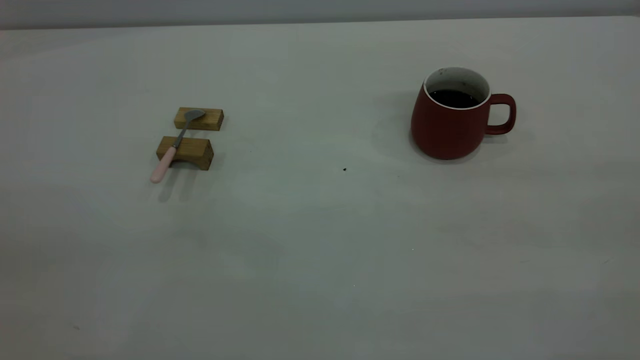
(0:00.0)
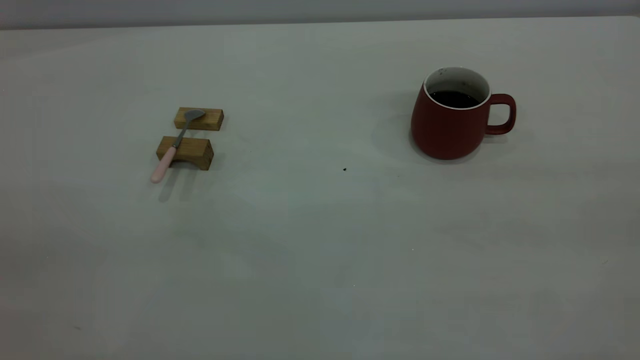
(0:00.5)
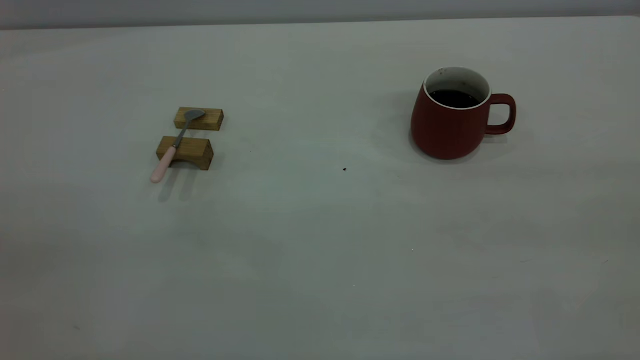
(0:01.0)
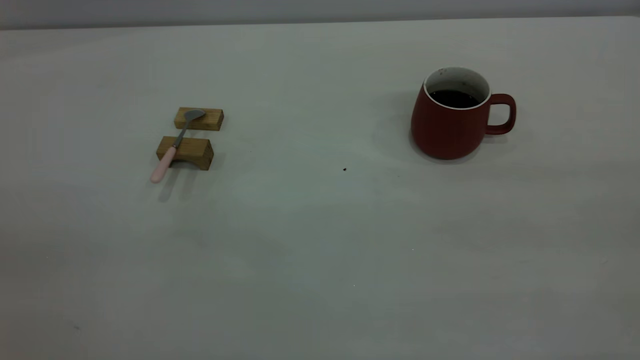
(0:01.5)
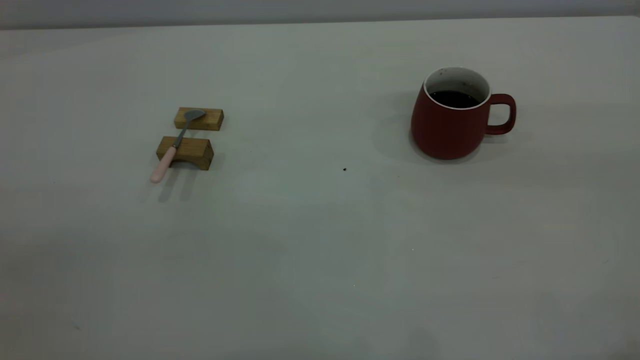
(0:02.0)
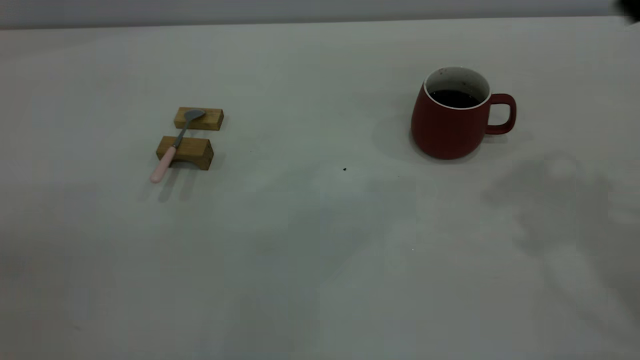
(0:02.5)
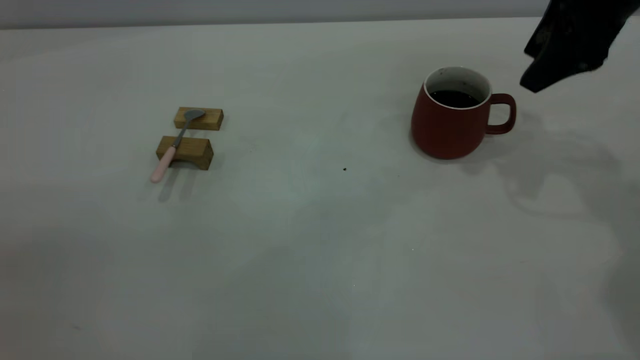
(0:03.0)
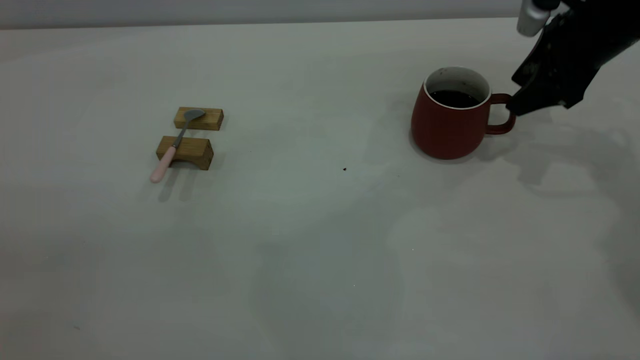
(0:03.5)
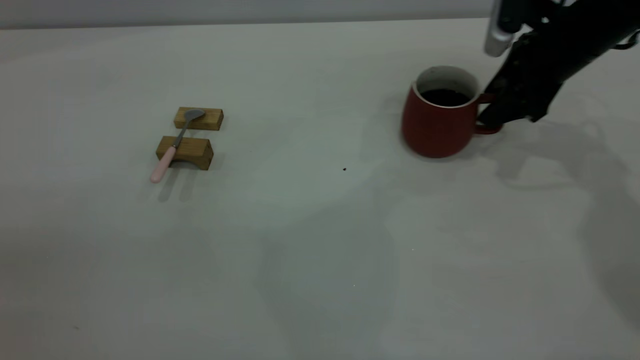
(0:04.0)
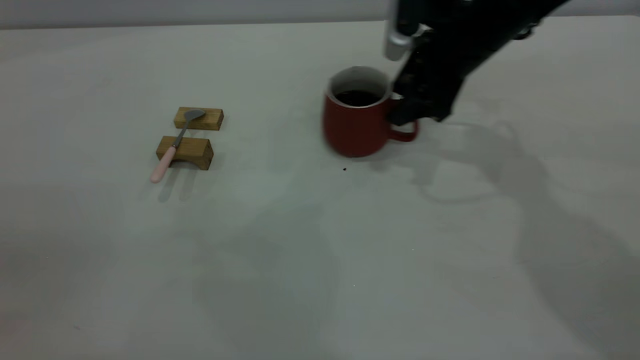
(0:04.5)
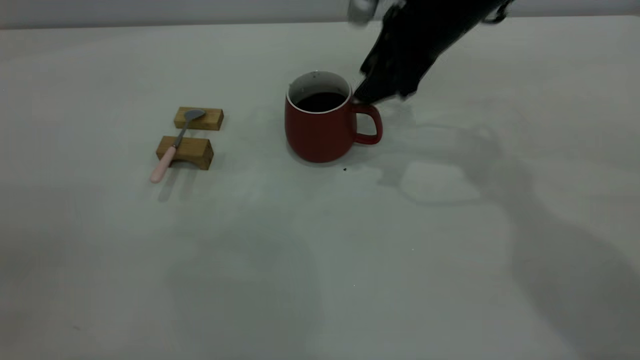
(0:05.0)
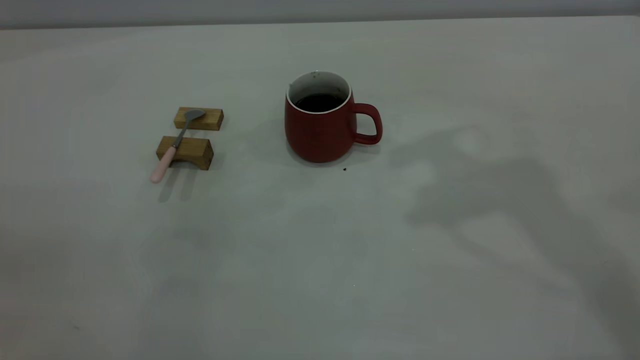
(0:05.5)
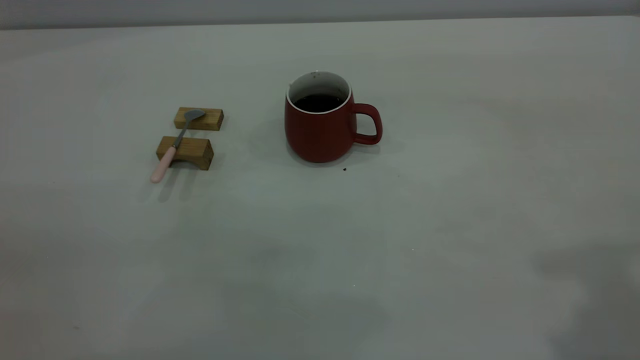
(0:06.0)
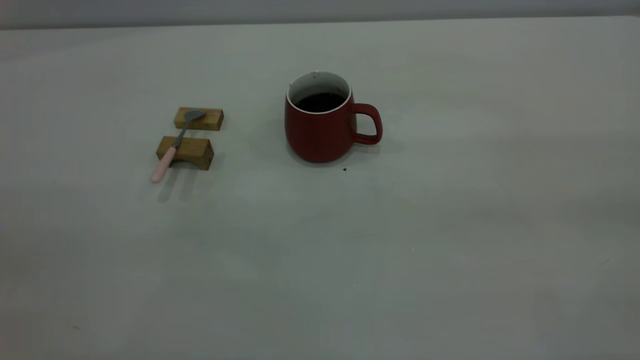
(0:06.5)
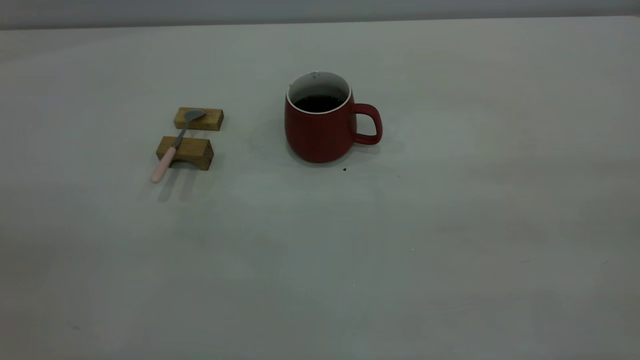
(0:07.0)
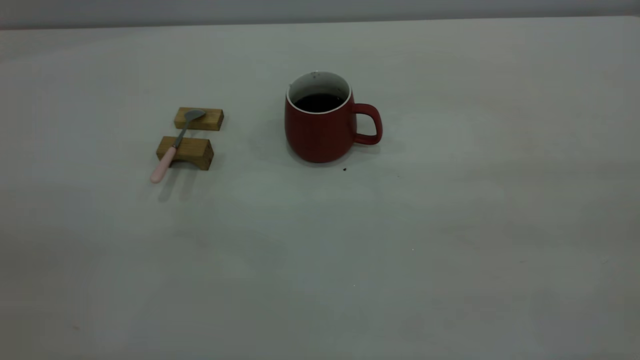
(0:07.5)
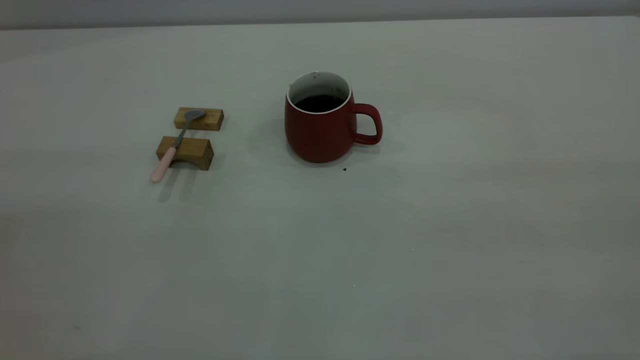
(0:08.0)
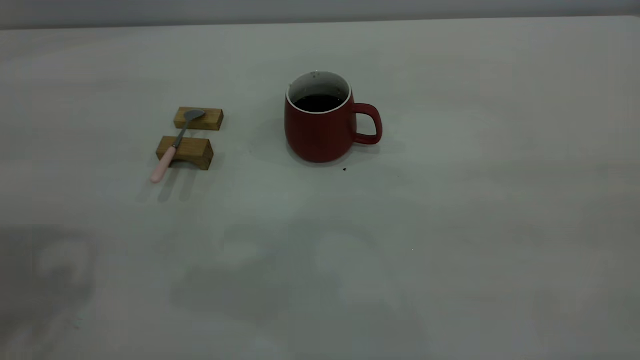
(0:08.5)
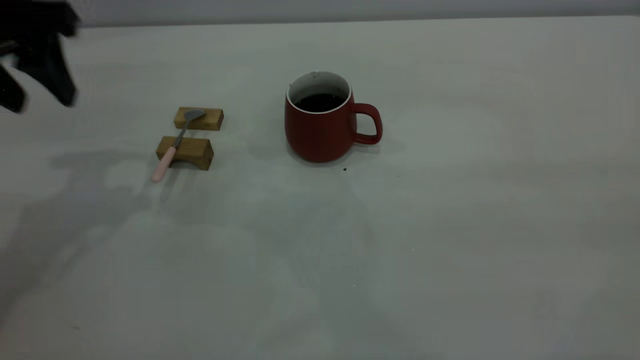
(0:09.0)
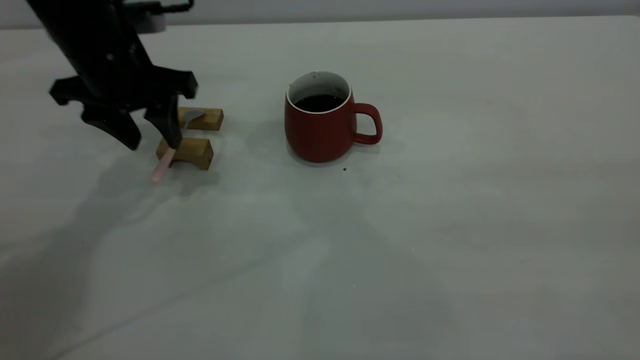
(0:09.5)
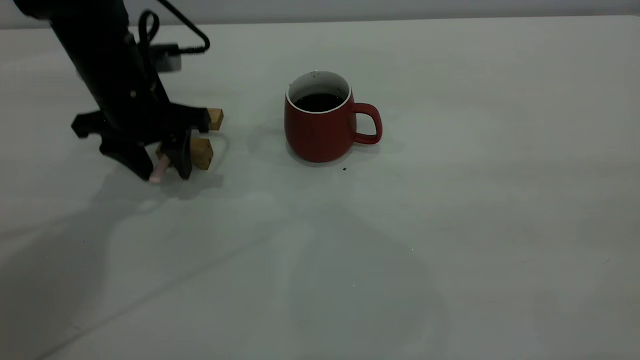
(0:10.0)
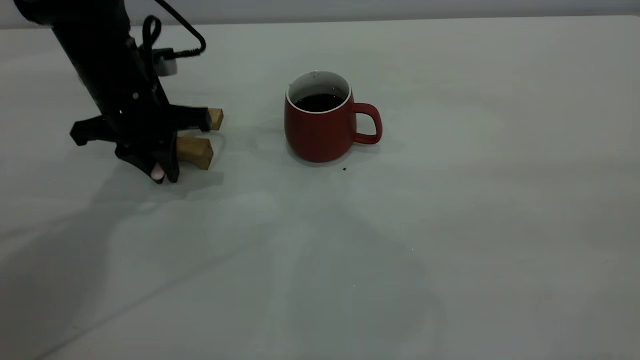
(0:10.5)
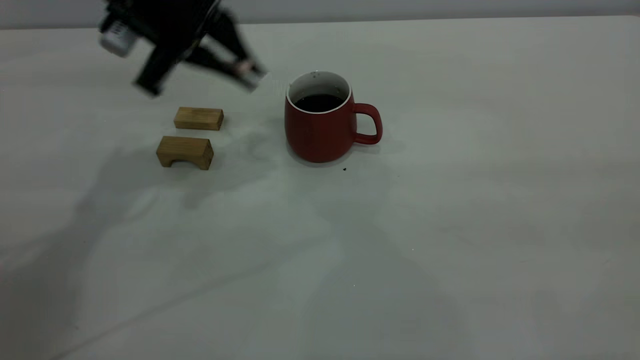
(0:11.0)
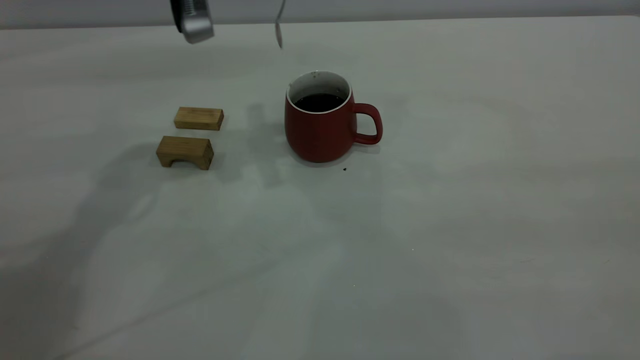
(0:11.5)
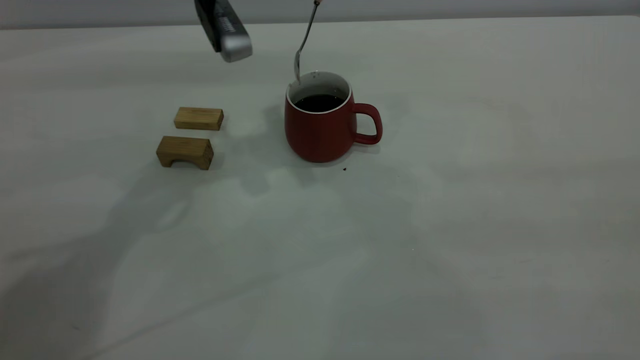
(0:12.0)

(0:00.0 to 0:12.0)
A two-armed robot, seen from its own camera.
Step, 0:00.0 - 0:05.0: Move the cup with coffee to the center of view.
Step, 0:05.5 - 0:10.5: Pick up the spoon.
0:02.0 - 0:04.0: The right gripper travels forward and downward by some 40 cm.
0:04.0 - 0:06.0: The right gripper shifts approximately 40 cm upward and backward, and closes.
0:08.0 - 0:10.0: The left gripper moves forward and downward, approximately 40 cm.
0:10.0 - 0:12.0: The left gripper heads upward and to the right, covering approximately 15 cm, and closes up.

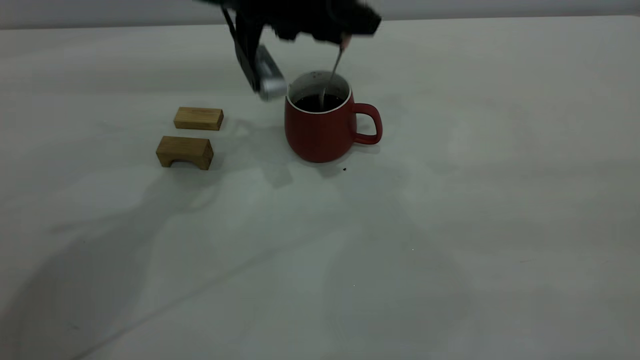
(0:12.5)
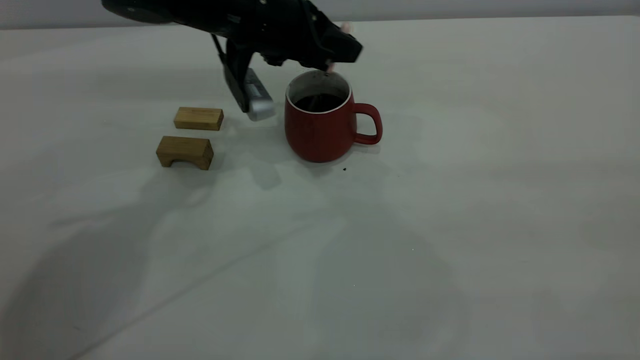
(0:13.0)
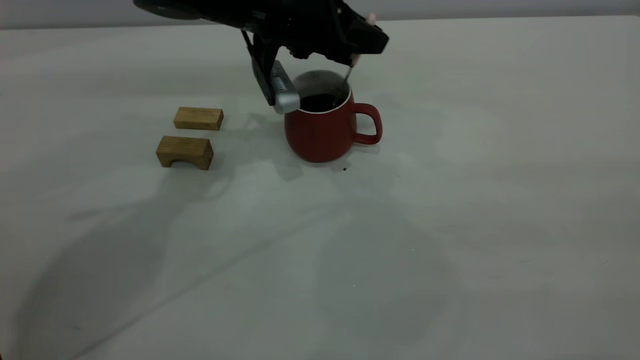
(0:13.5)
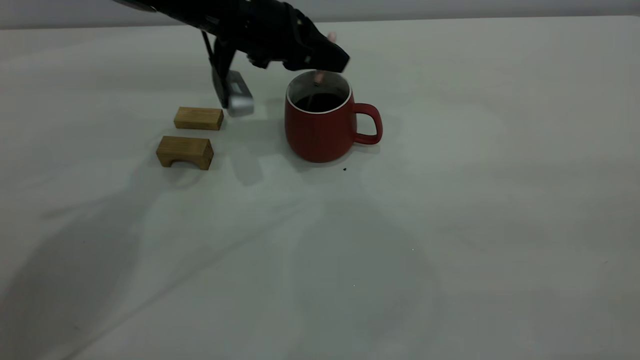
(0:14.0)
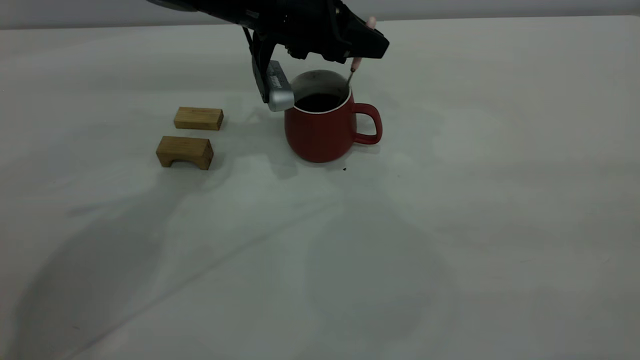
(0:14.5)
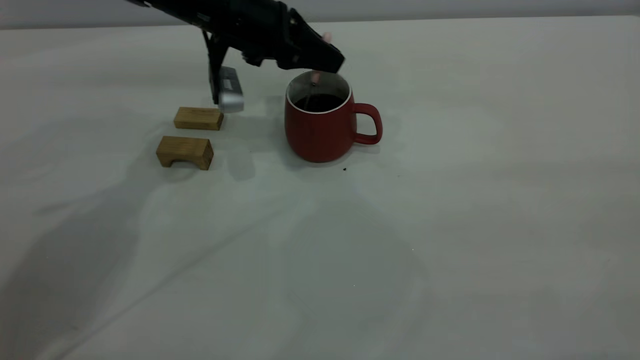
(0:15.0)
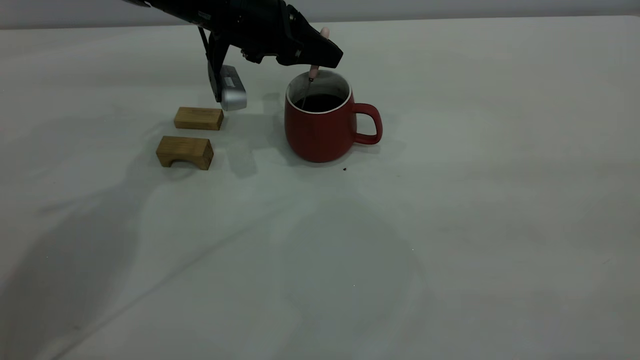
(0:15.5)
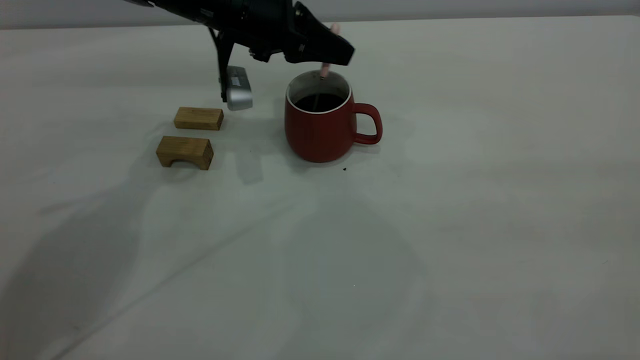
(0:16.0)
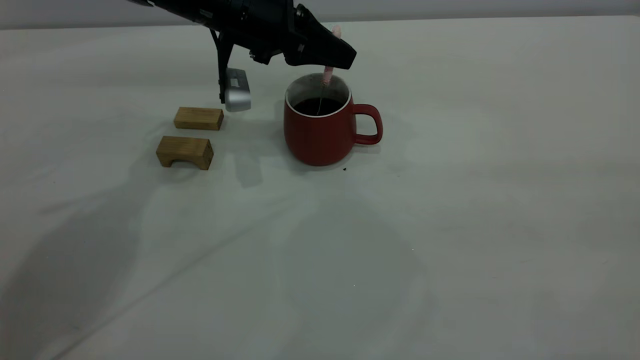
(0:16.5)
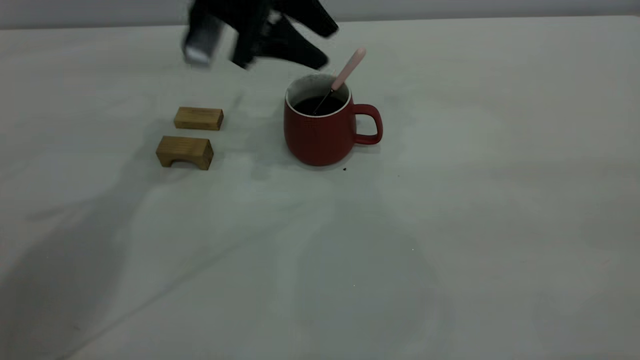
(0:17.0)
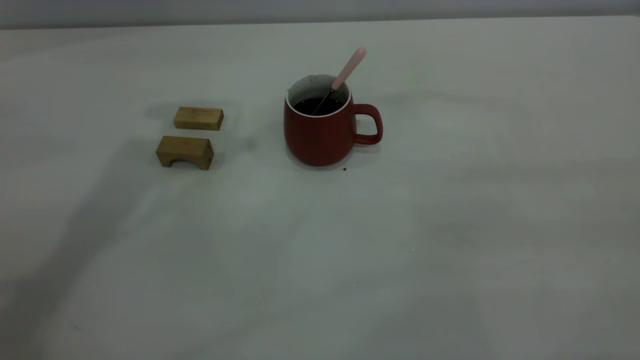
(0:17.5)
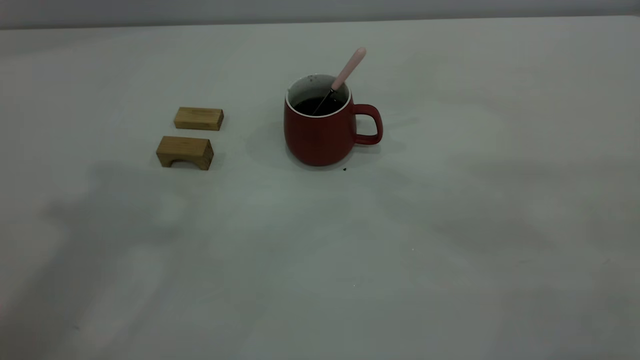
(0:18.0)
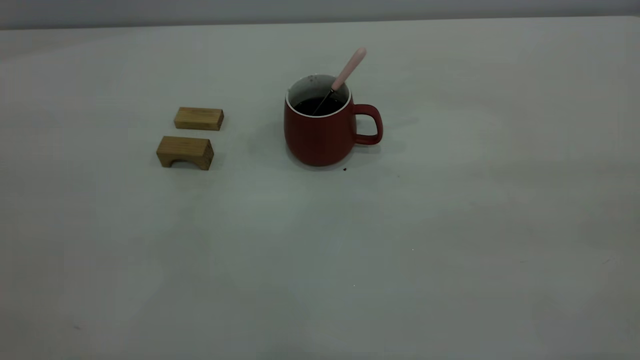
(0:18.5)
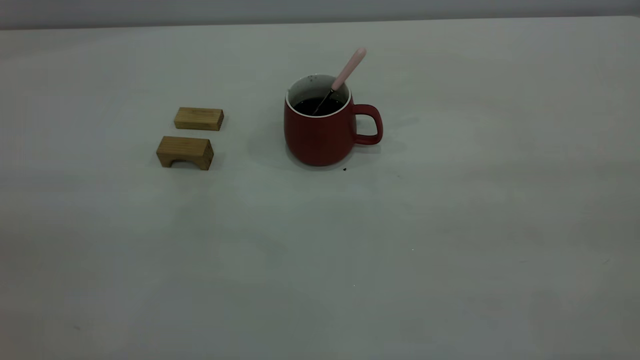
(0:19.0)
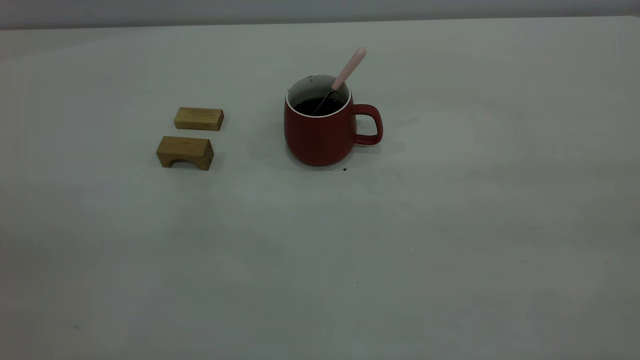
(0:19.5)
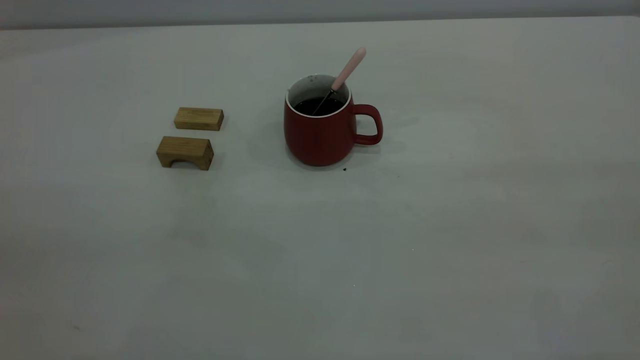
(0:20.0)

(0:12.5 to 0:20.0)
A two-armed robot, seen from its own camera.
Step, 0:12.5 - 0:17.0: Stir the coffee in the cup.
0:12.5 - 0:16.5: The grippers stay close to where they were, moving slightly.
0:16.5 - 0:18.0: The left gripper travels upward and backward by some 40 cm, and opens.

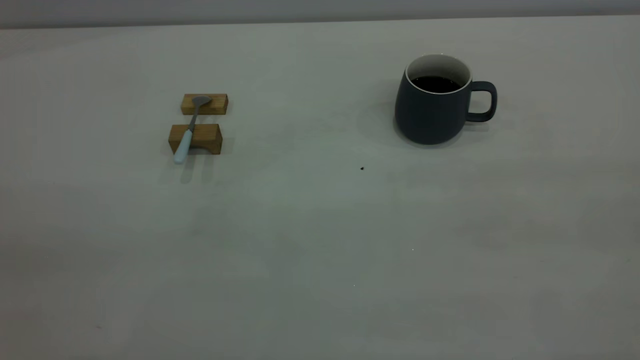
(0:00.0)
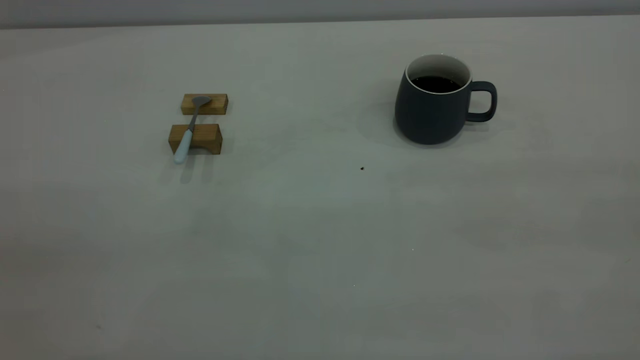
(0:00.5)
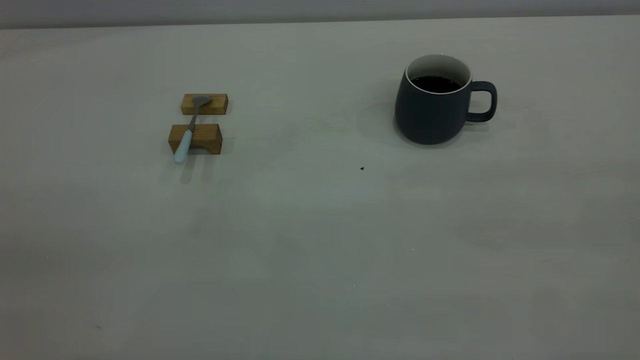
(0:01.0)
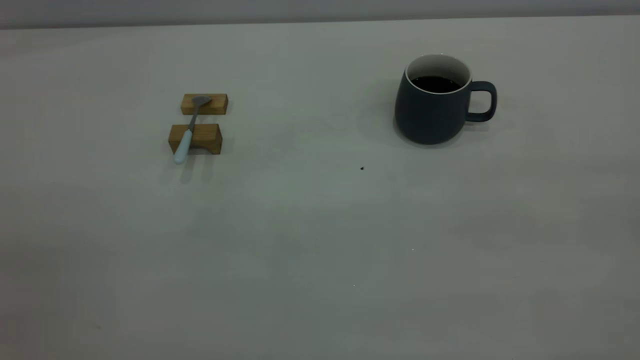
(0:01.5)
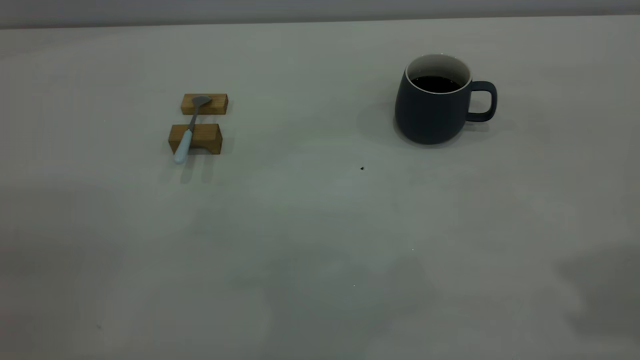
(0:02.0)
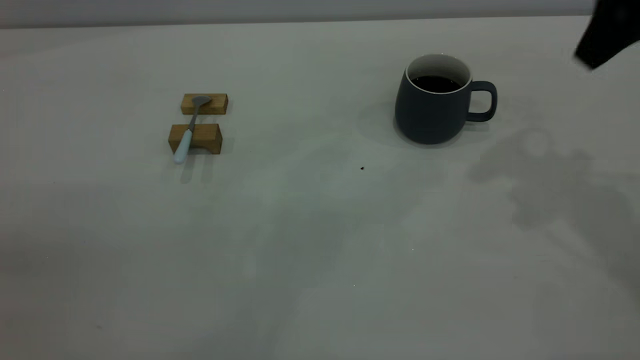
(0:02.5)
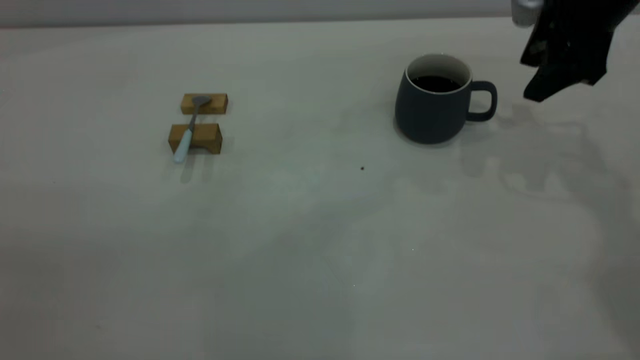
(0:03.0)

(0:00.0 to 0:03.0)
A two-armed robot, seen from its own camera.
0:01.5 - 0:03.0: The right gripper goes approximately 40 cm forward and downward.
